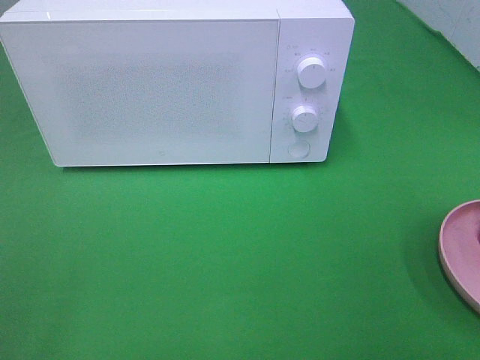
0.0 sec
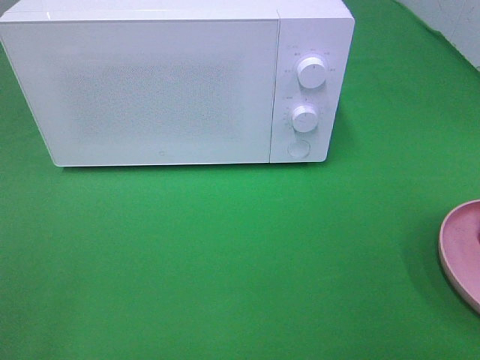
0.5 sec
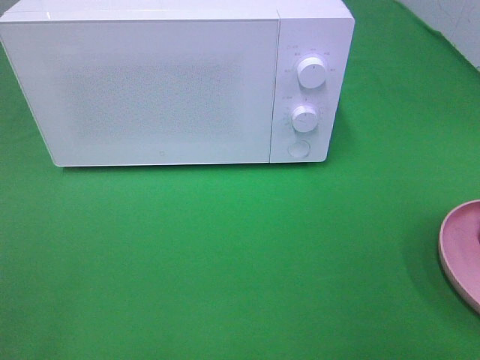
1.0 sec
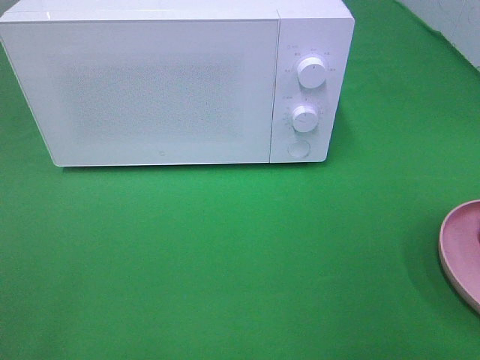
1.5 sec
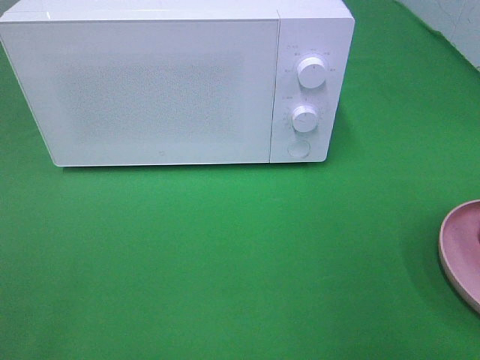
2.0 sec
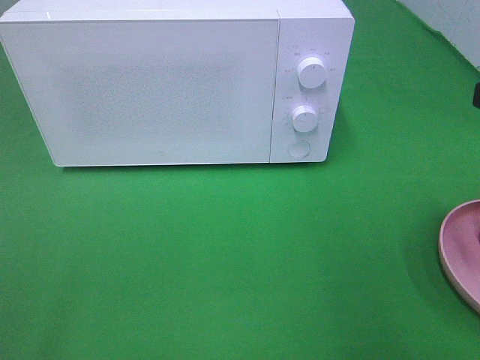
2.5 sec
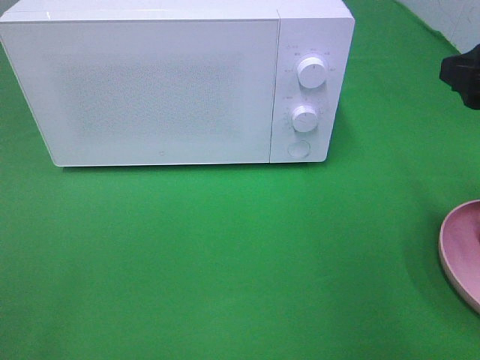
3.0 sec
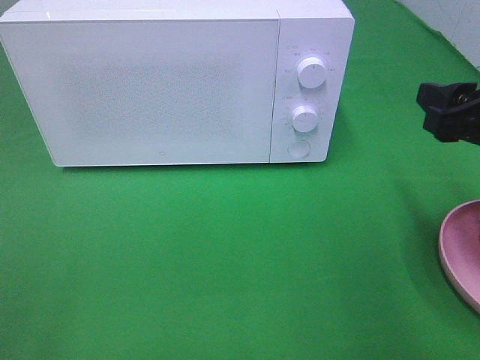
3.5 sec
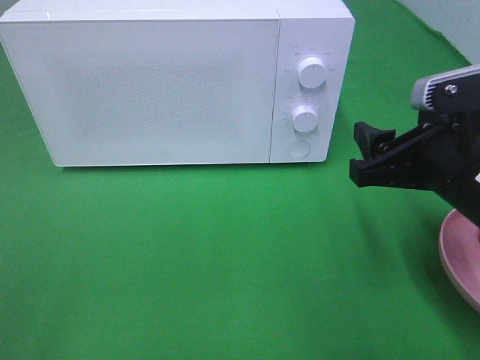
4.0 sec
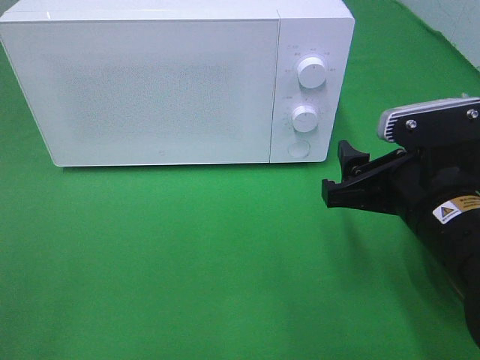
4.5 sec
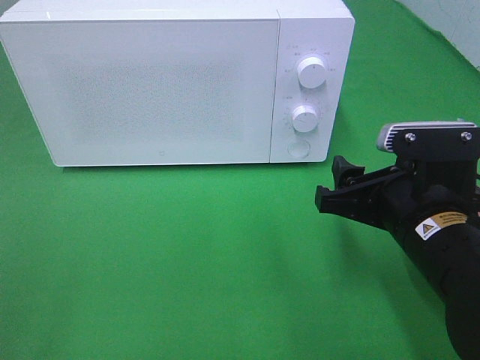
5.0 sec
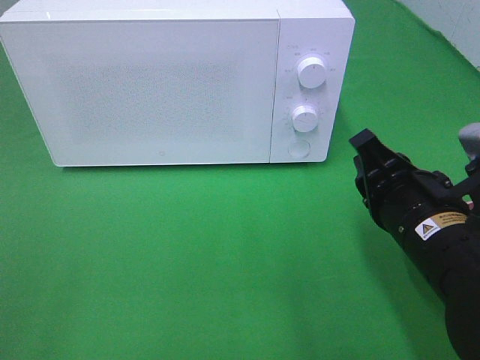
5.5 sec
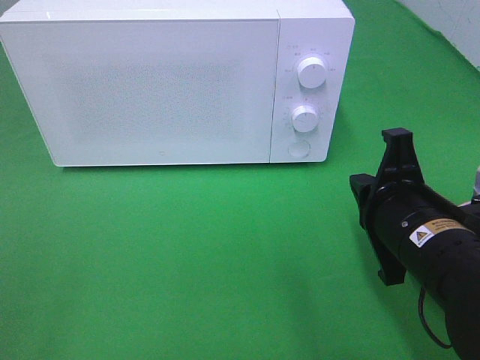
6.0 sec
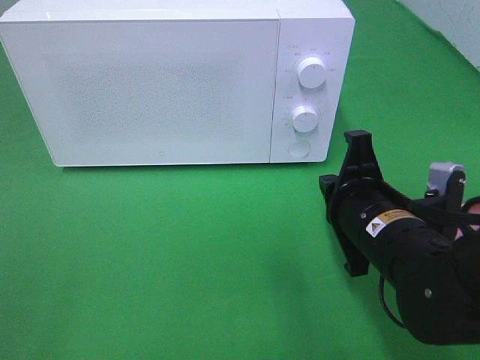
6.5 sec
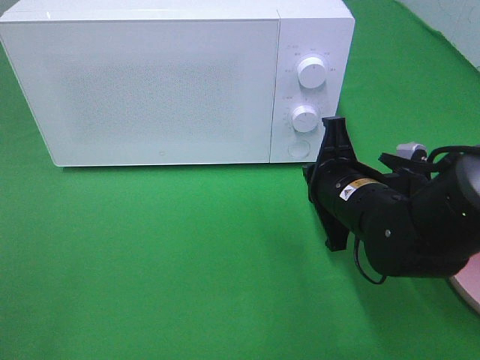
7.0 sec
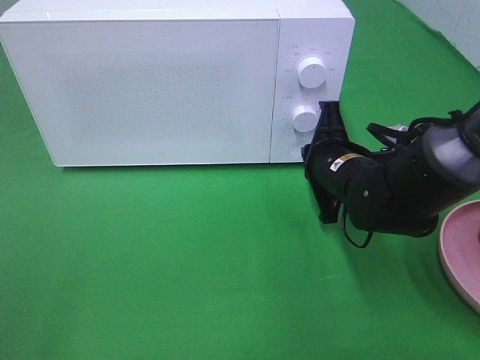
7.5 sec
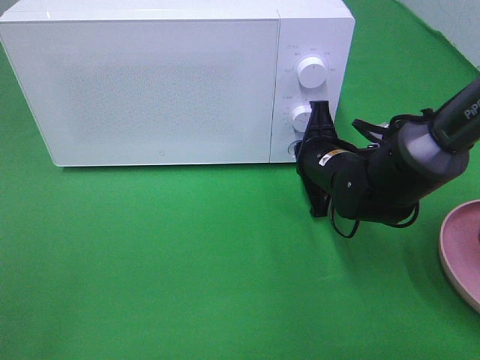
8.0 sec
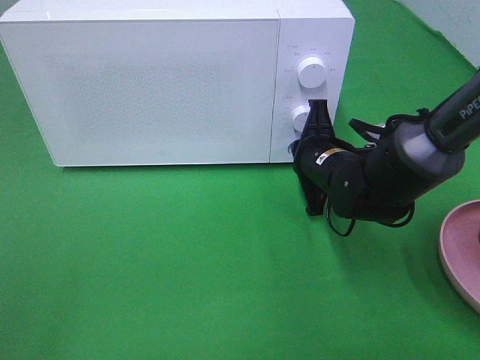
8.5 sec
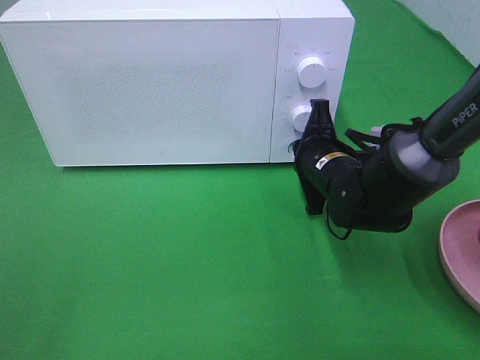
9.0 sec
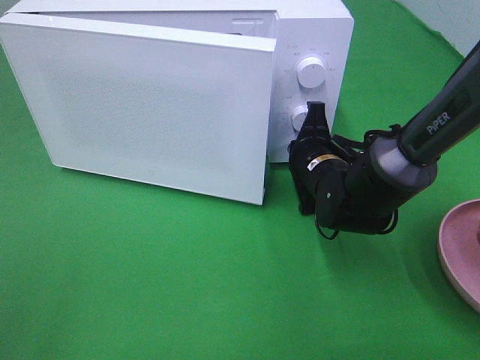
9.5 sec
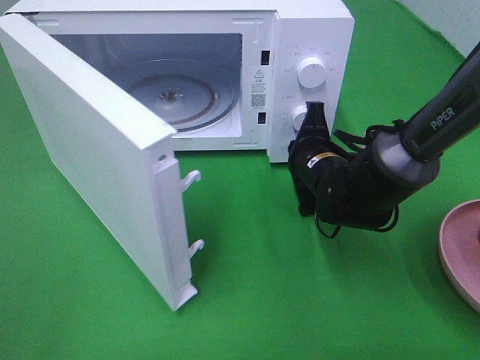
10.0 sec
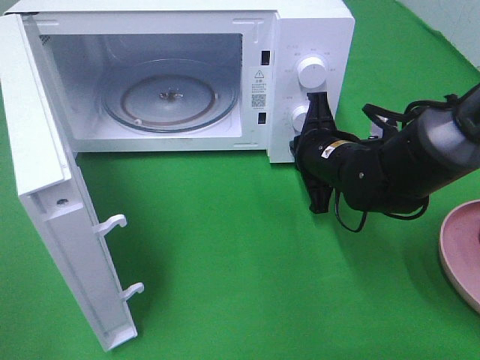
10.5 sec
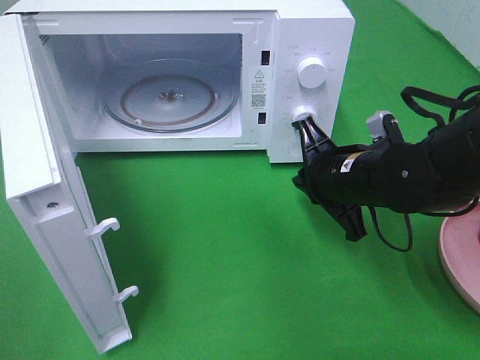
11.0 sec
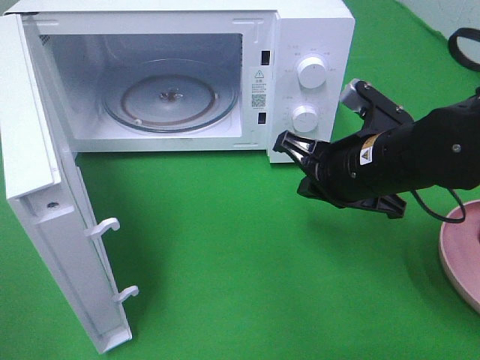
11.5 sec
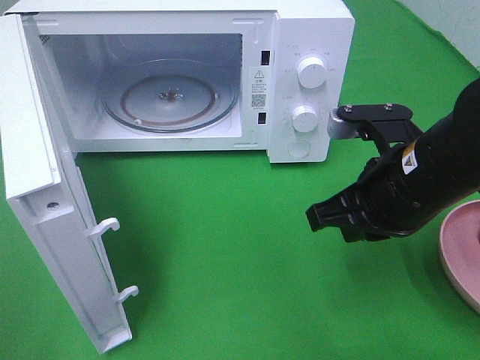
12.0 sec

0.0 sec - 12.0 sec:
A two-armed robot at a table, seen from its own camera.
Task of the whole recording: Heat the burger.
Step, 0.0 sec - 11.5 sec: Right hand: press the switch.
2.0 sec - 4.0 sec: The right gripper travels downward, forward and to the left by approximately 15 cm.
4.0 sec - 6.0 sec: The right gripper moves downward, about 5 cm, and closes up.
6.0 sec - 8.0 sec: The right gripper shifts some 15 cm forward.
10.0 sec - 12.0 sec: The right gripper moves backward and upward, approximately 15 cm.

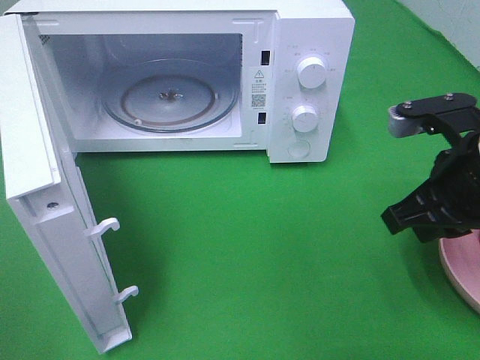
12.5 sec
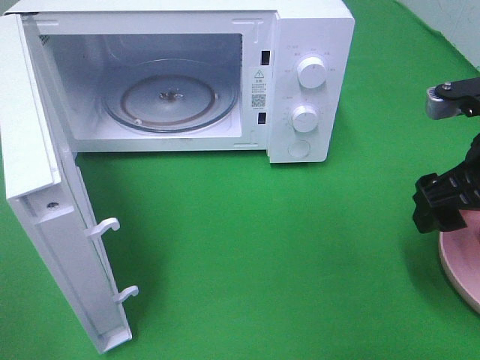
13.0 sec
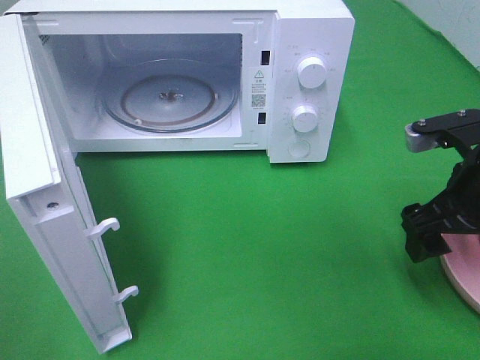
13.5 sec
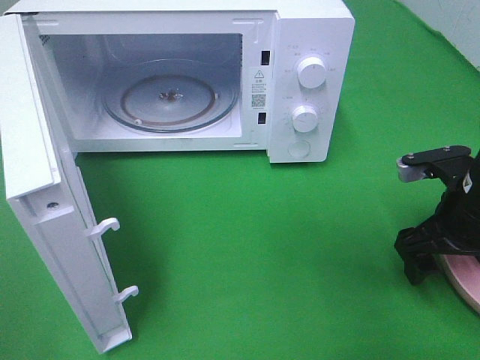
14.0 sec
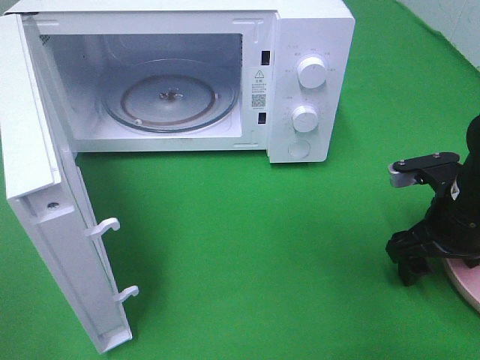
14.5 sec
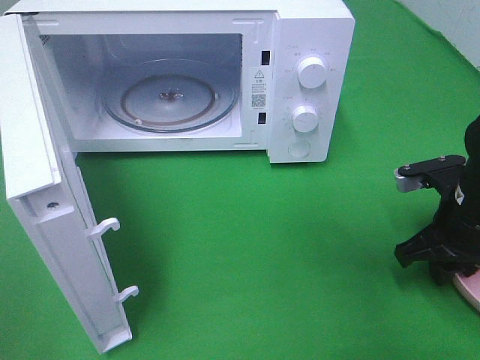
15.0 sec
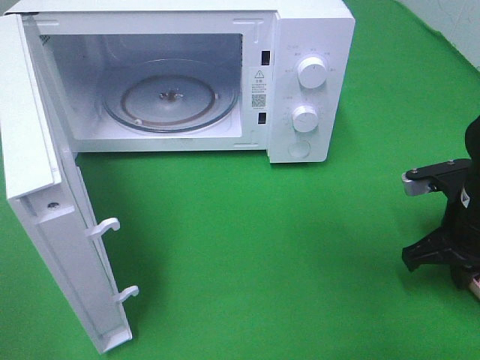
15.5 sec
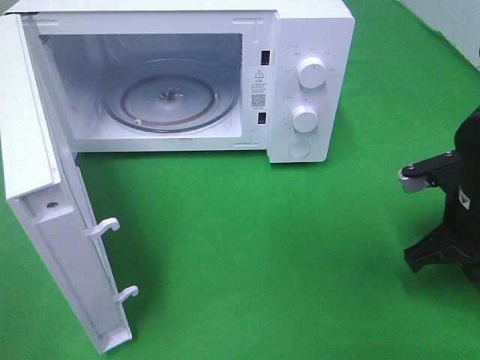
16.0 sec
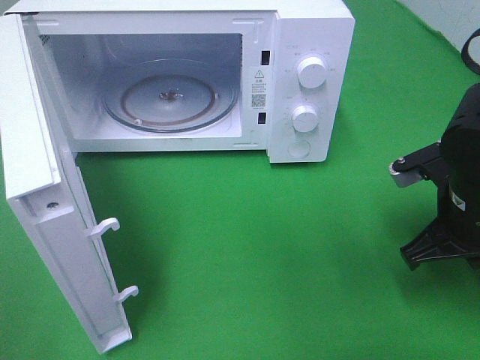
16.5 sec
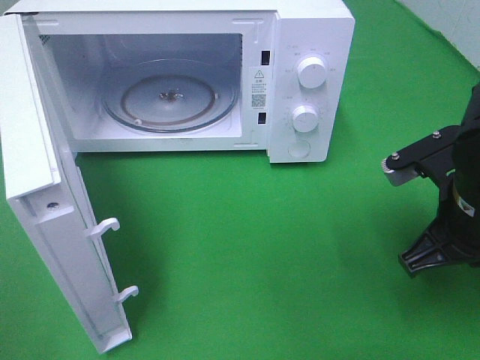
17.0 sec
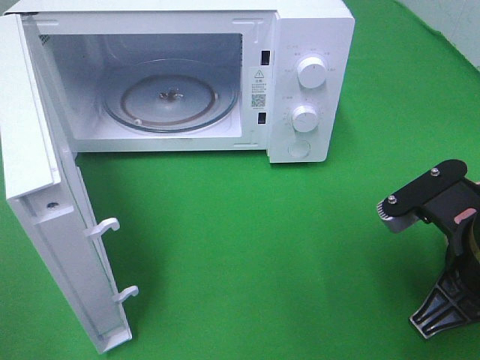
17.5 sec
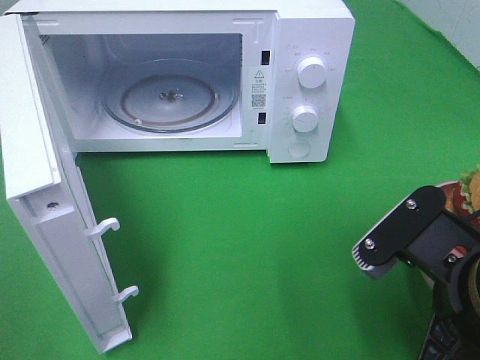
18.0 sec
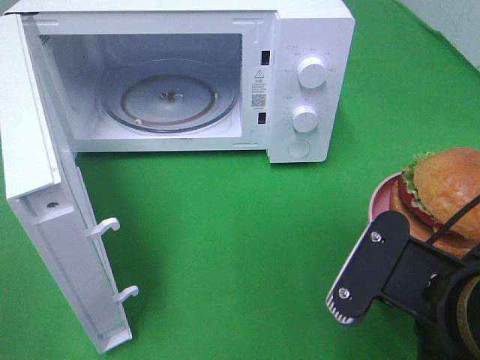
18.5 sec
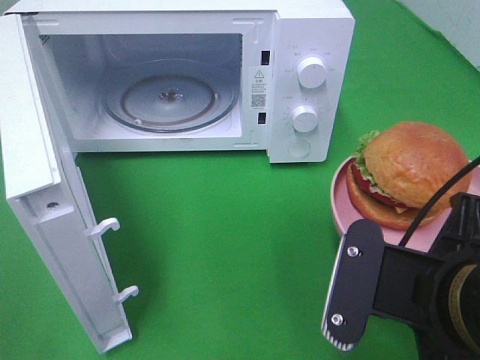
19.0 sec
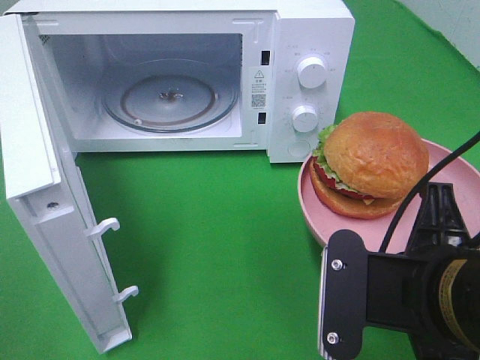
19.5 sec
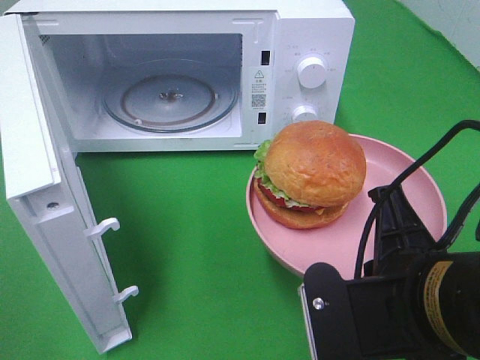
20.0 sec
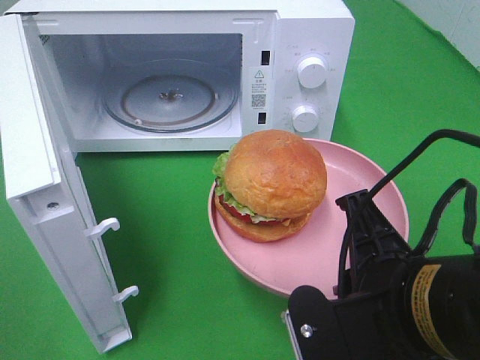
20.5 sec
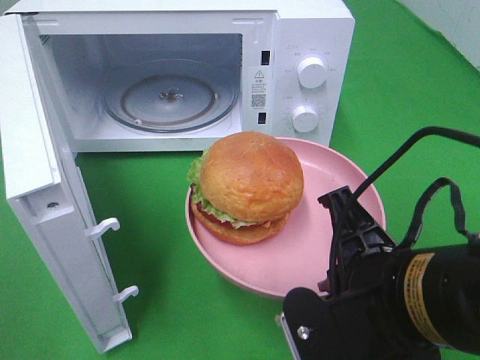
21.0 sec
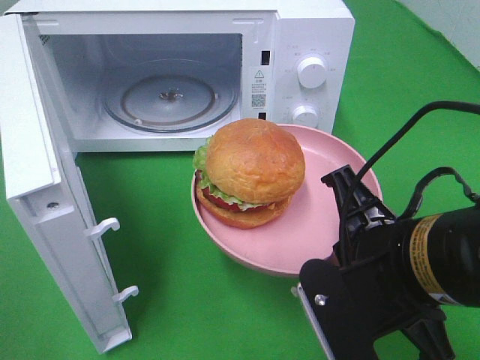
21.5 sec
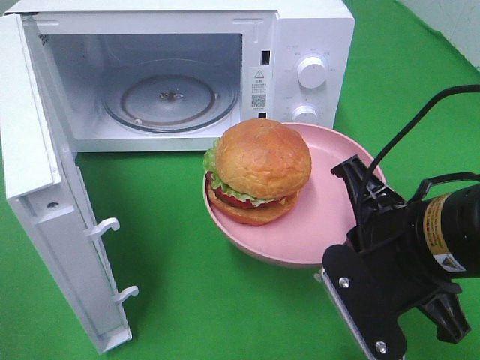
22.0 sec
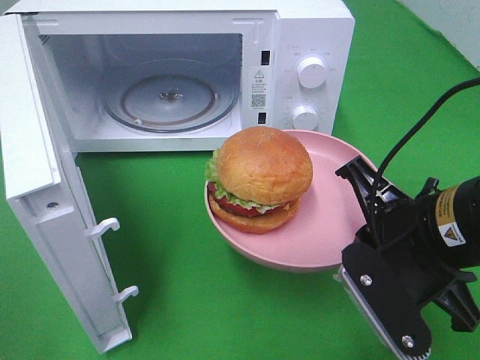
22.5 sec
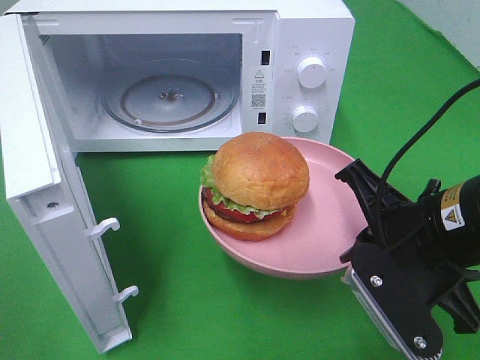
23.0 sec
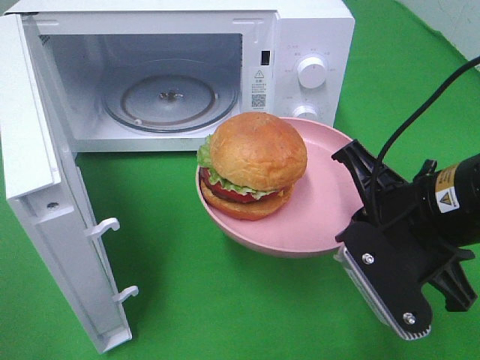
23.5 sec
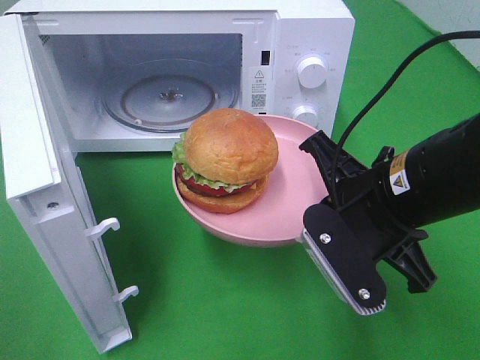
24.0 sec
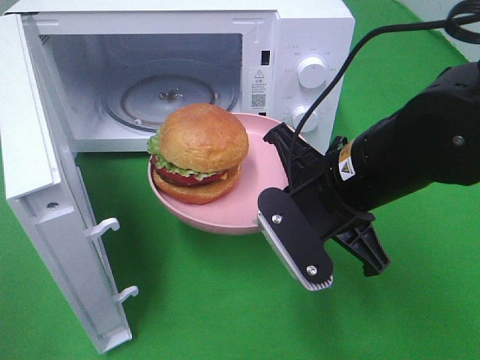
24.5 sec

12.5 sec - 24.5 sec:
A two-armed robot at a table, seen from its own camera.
Task of the whole recording: Heat the burger.
Step, 12.5 sec - 15.5 sec: Right hand: grab the plate with the hamburger.
12.5 sec - 14.5 sec: The right gripper moves downward, about 10 cm, and opens up.
14.5 sec - 16.5 sec: The right gripper closes.
16.5 sec - 18.5 sec: The right gripper is displaced backward and to the left by approximately 15 cm.
20.5 sec - 22.5 sec: The right gripper travels forward by roughly 5 cm.
22.5 sec - 24.5 sec: The right gripper is displaced to the left and forward by about 10 cm.

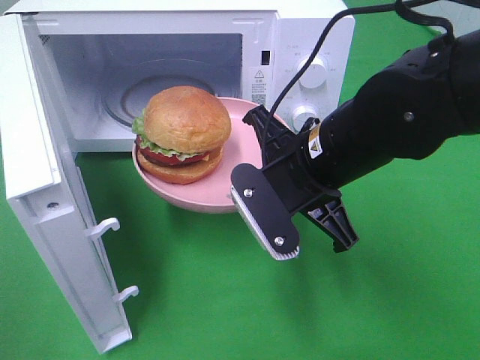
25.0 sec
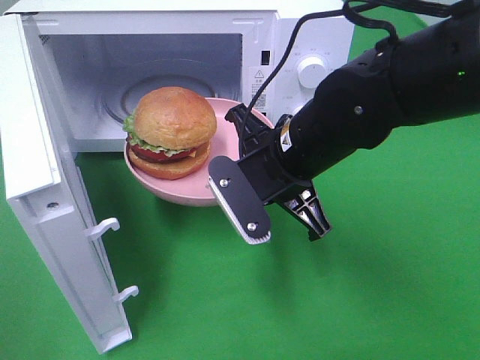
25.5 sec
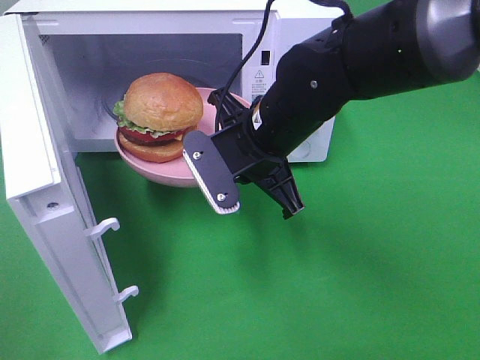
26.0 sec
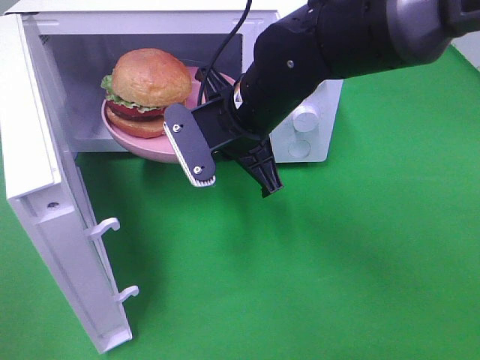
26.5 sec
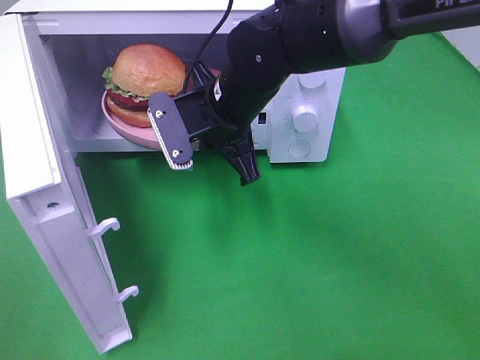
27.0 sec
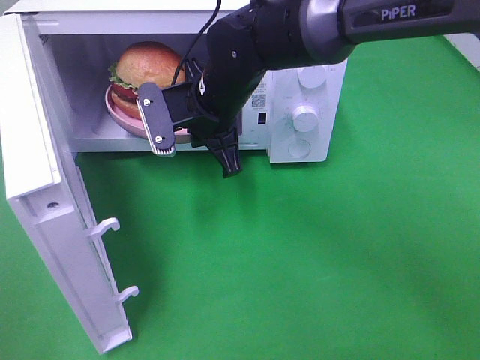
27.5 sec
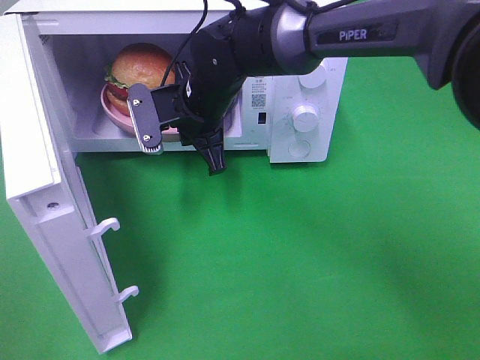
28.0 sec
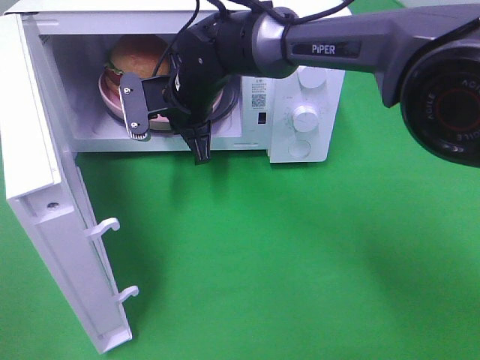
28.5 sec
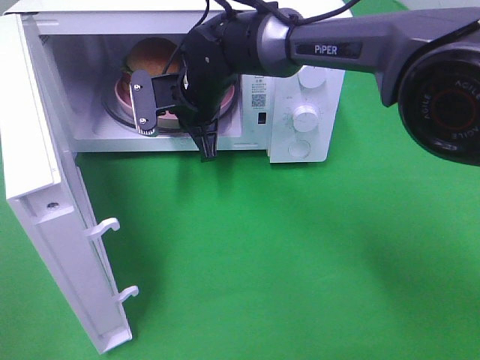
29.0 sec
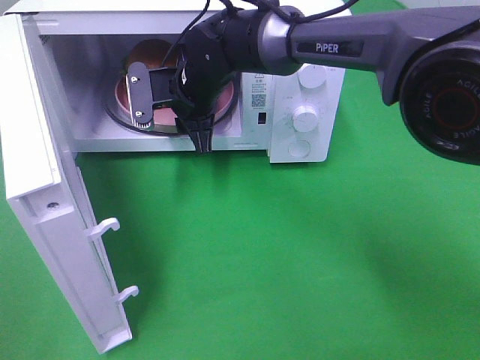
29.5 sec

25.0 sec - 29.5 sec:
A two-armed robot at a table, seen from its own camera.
Task of the whole recording: Heat the burger.
25.0 sec - 27.0 sec: The right gripper moves forward and to the left, about 15 cm.
27.0 sec - 29.5 sec: The right gripper goes about 10 cm forward, and opens its fingers.
